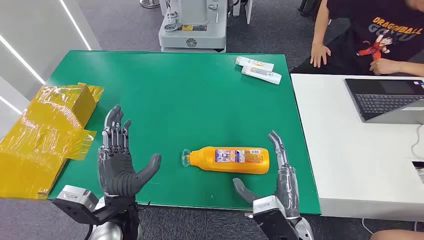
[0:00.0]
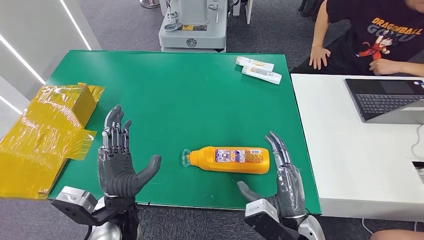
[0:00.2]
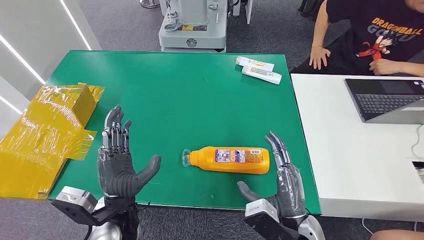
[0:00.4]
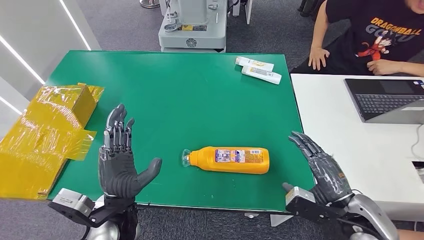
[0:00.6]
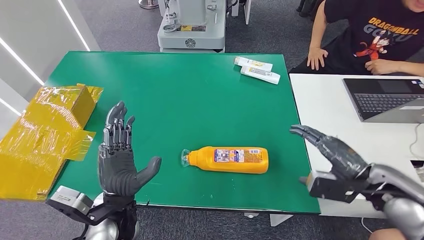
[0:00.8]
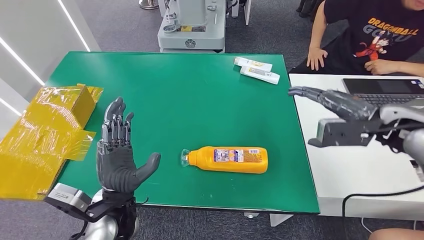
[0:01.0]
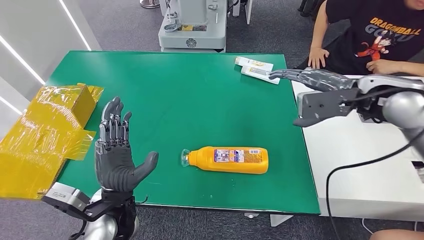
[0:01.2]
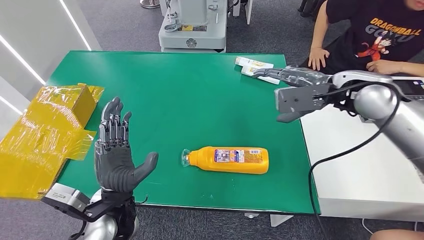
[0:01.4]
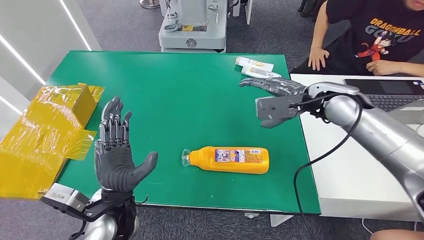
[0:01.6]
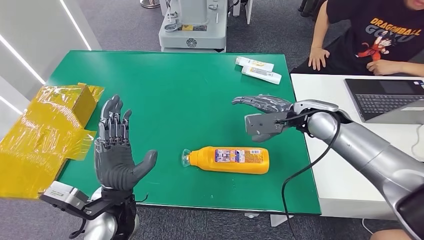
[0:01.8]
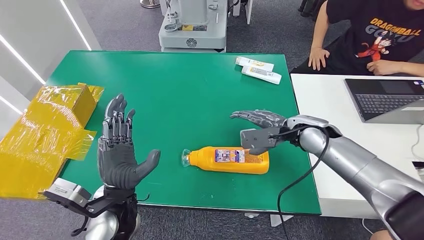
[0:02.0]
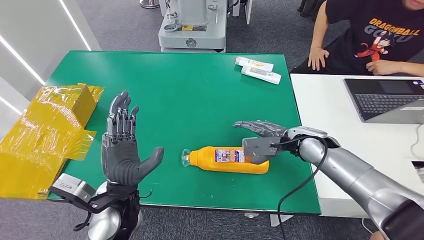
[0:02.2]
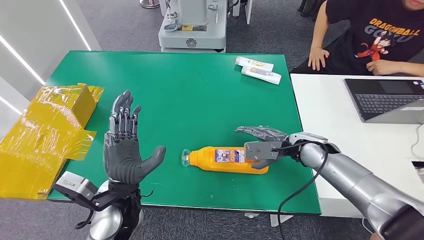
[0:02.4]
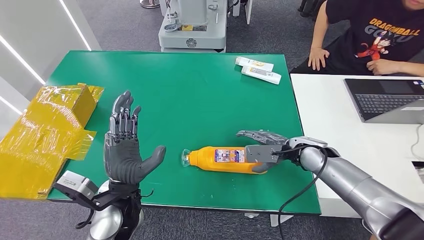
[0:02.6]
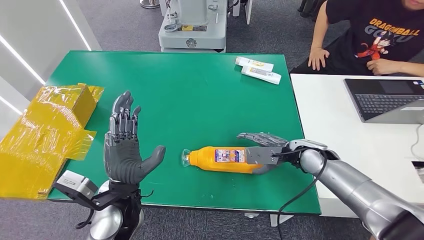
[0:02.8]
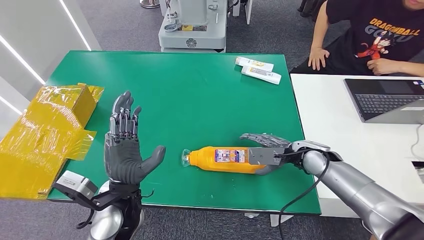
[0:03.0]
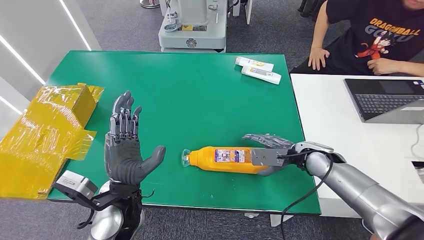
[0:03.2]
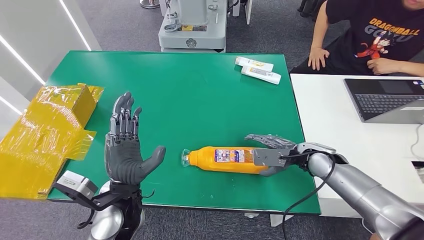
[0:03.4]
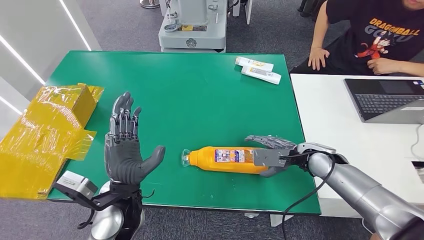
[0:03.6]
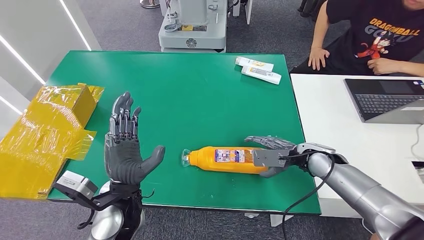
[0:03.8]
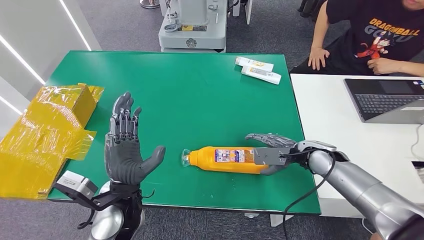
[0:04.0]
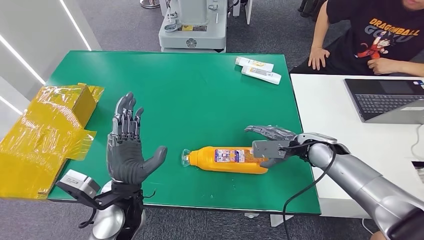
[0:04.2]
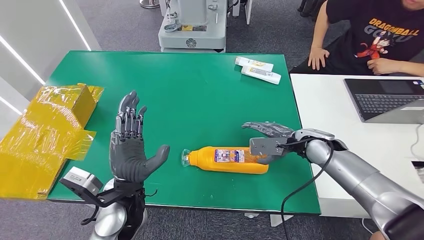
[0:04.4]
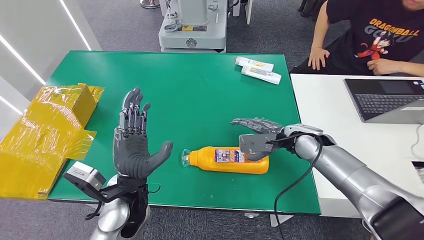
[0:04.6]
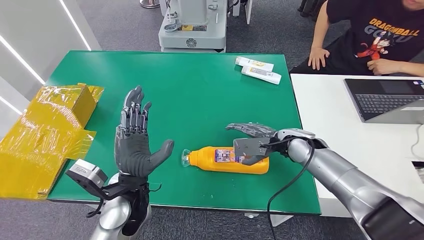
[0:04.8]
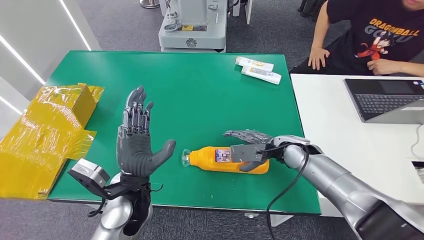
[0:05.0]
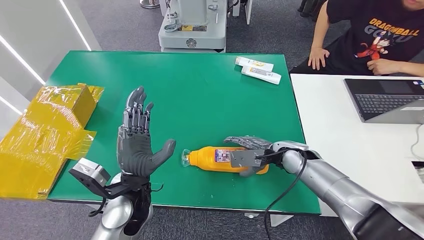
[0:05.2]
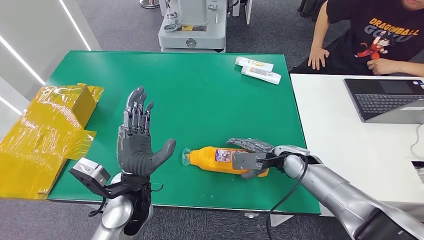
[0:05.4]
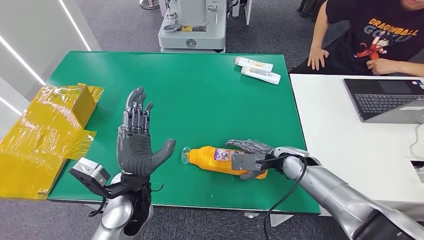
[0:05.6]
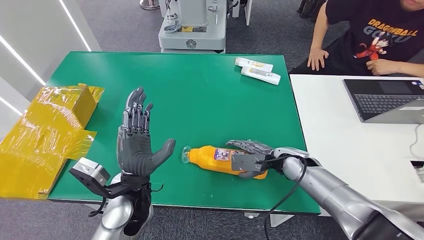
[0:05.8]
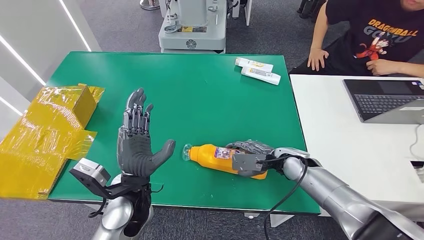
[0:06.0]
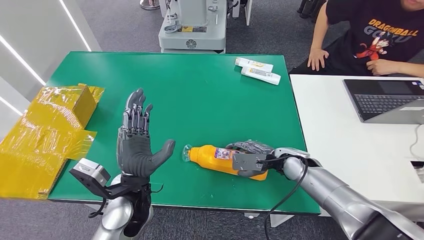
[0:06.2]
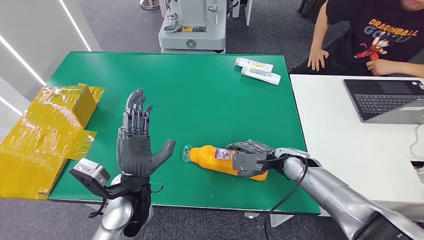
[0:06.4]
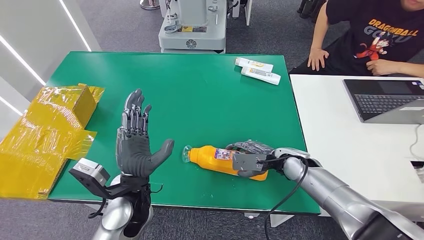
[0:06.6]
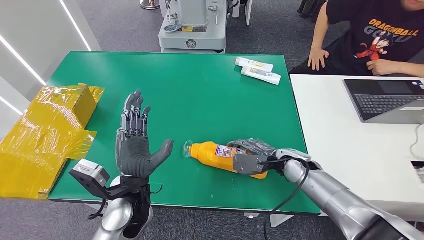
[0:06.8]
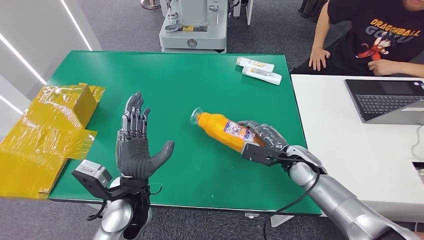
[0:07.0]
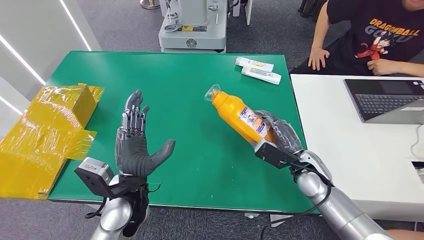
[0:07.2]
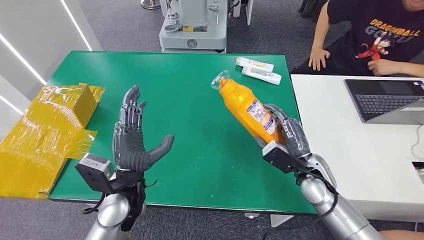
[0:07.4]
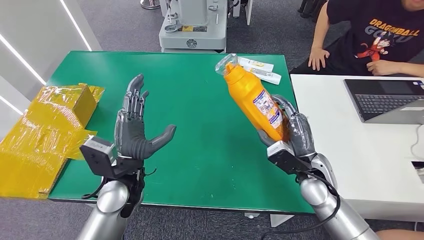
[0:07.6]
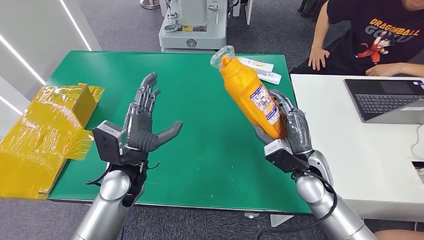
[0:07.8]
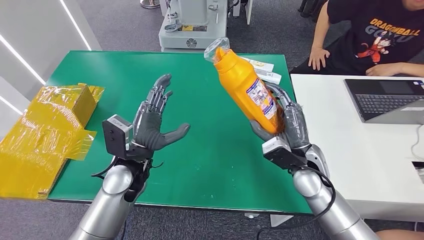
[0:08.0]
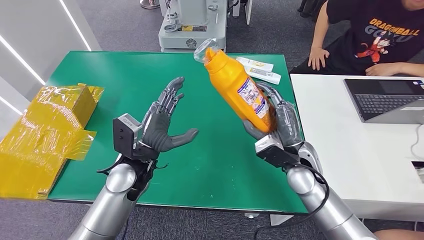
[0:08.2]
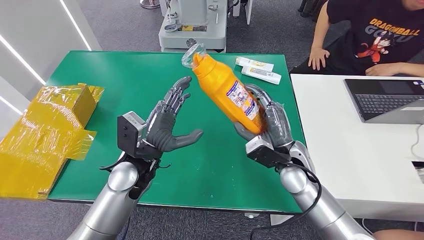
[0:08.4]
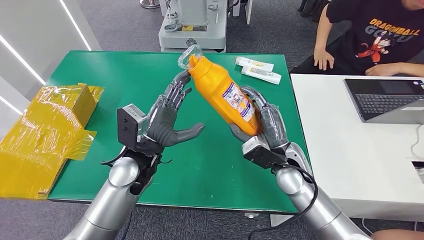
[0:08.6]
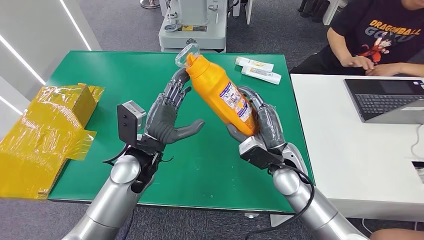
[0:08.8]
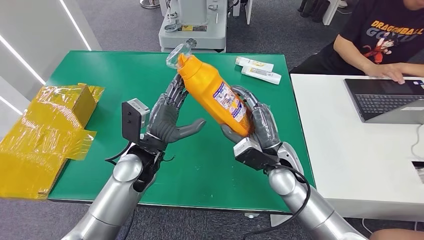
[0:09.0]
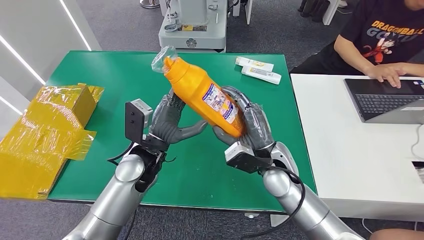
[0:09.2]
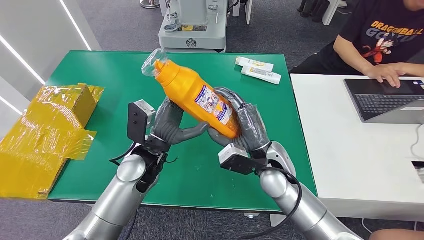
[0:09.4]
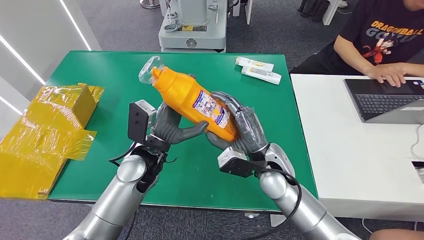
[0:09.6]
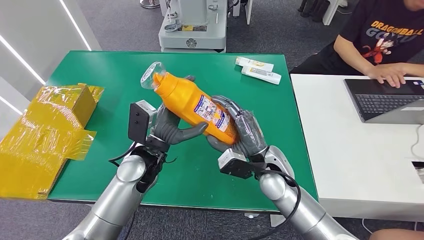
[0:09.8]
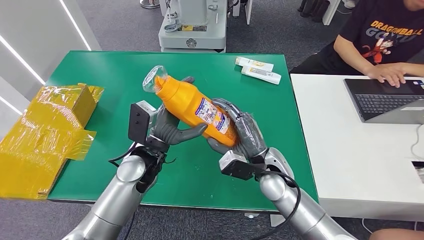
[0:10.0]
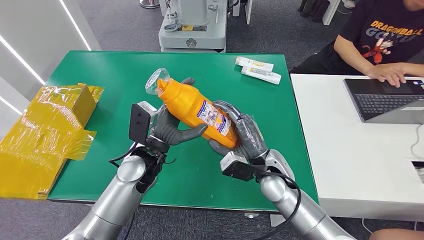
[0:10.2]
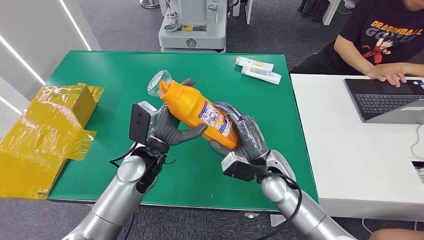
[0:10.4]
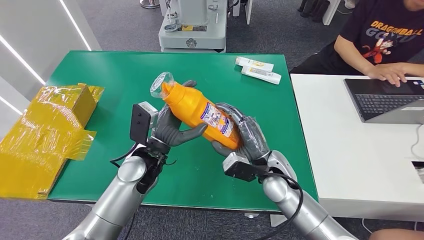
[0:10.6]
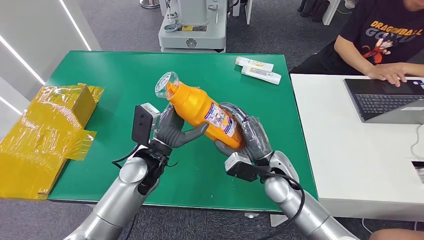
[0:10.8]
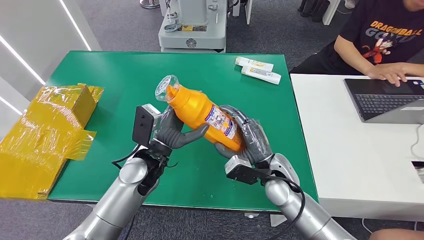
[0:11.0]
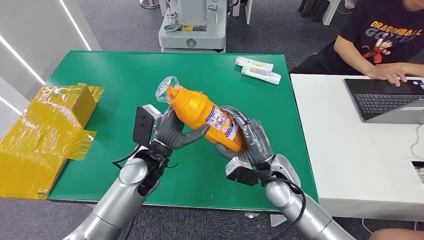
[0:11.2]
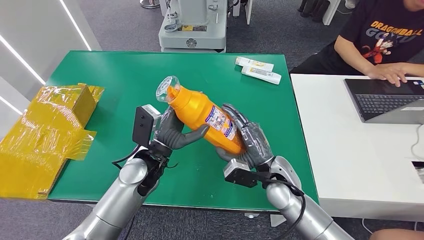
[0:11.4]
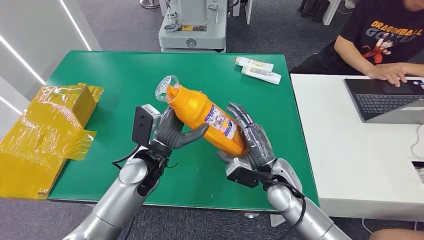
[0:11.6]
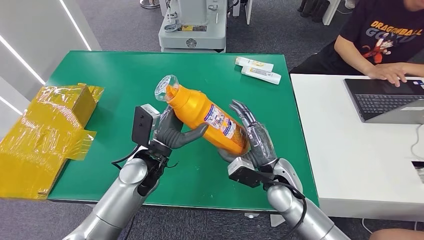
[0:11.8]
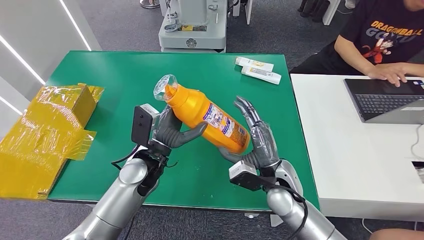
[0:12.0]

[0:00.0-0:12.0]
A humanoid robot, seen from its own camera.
Step, 0:00.0 to 0:07.0: Pick up the bottle from the table.
0:01.6 to 0:03.0: The right hand travels downward by approximately 15 cm.
0:03.0 to 0:04.4: The hands move only a little.
0:04.4 to 0:06.0: The right hand goes about 5 cm downward.
0:06.0 to 0:07.6: The right hand heads backward, covering about 5 cm.
0:09.0 to 0:12.0: There are only small adjustments of the hands.

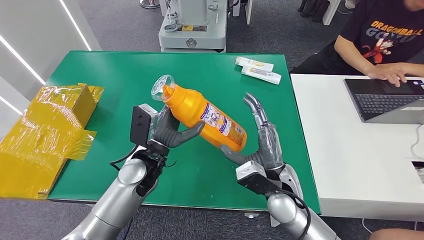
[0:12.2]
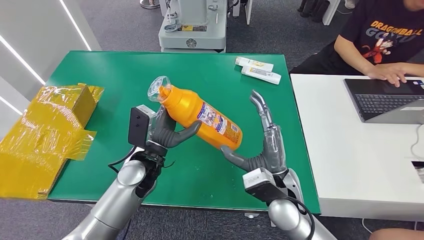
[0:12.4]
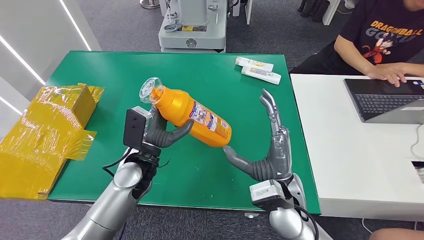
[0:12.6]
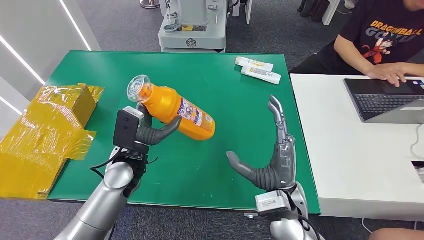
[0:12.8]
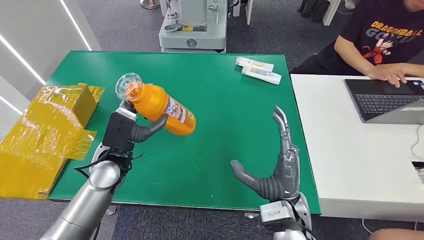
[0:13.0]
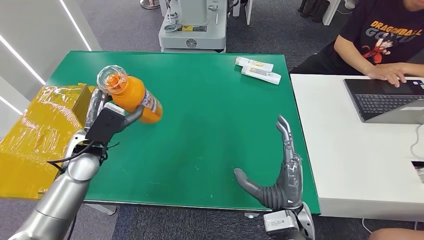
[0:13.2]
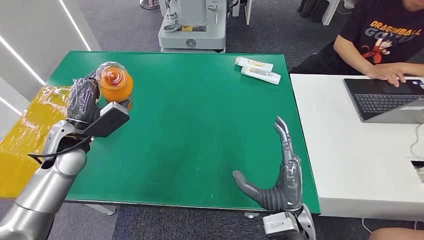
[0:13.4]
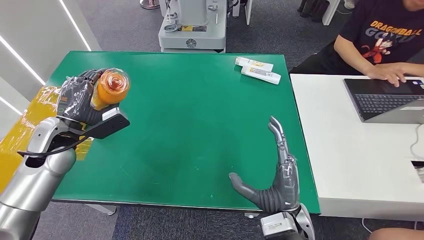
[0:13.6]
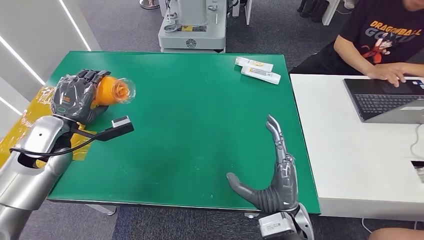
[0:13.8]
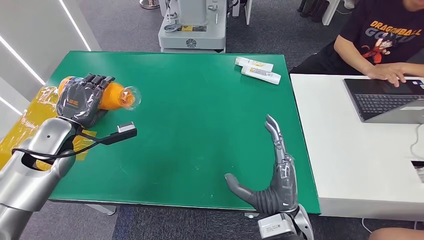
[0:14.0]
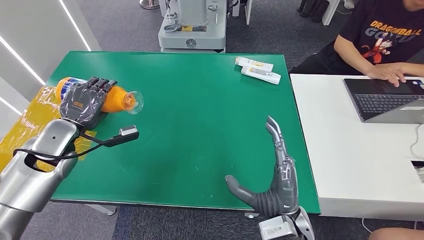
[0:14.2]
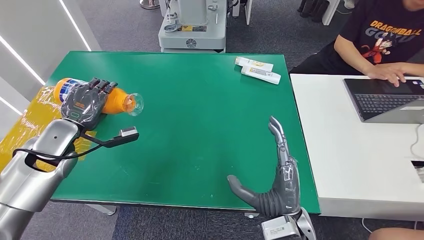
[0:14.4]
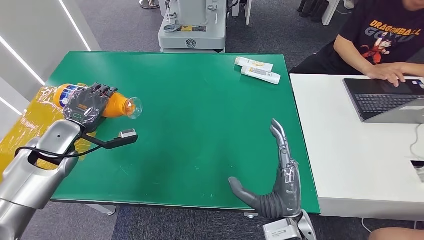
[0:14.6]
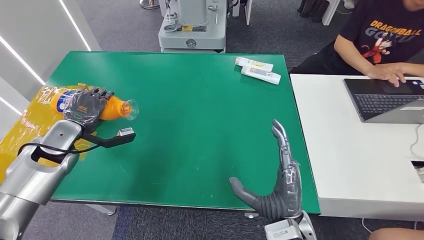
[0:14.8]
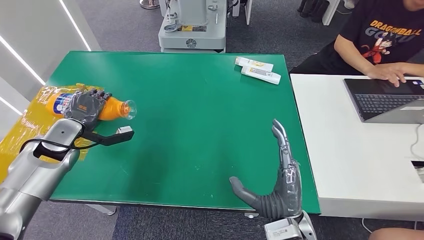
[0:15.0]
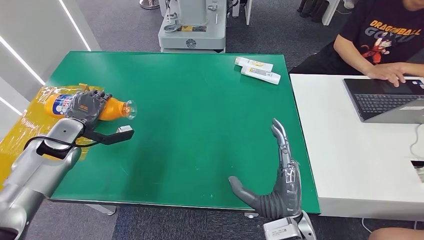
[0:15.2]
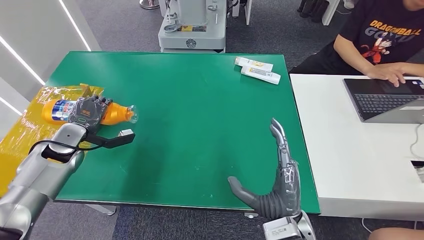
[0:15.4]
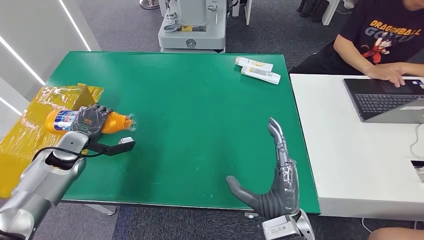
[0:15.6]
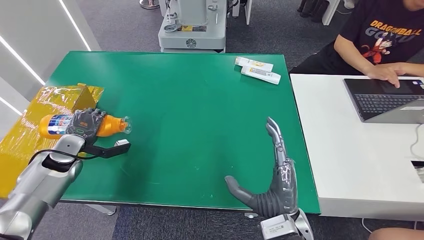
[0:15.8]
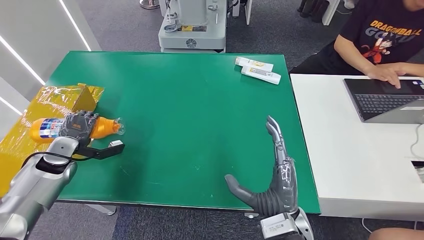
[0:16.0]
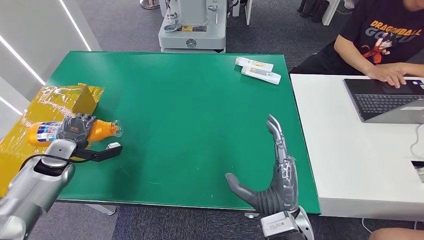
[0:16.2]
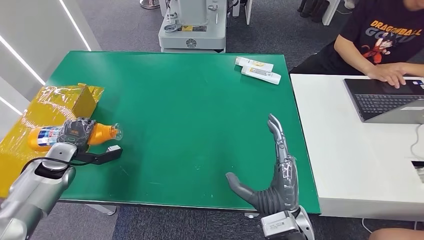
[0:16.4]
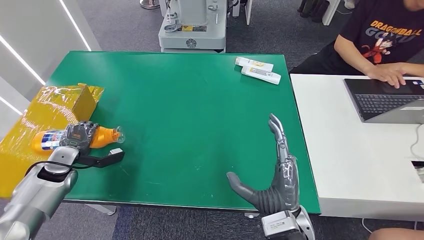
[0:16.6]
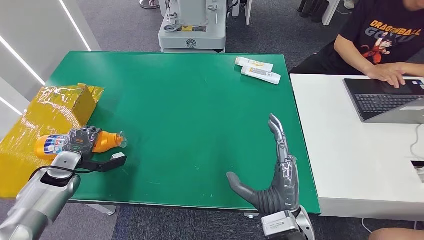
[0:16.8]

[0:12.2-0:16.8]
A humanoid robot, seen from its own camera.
0:13.8 to 0:15.2: The left hand shifts some 5 cm downward.
0:15.2 to 0:16.8: The left hand goes roughly 10 cm downward and backward.
